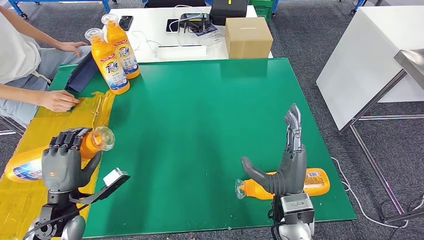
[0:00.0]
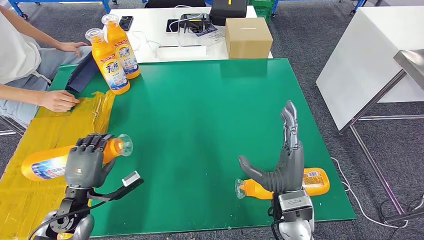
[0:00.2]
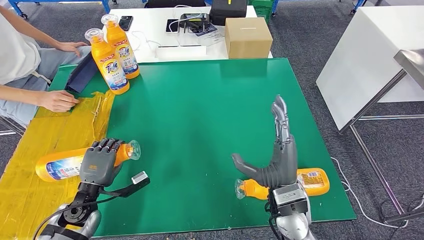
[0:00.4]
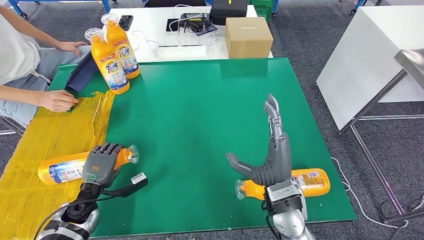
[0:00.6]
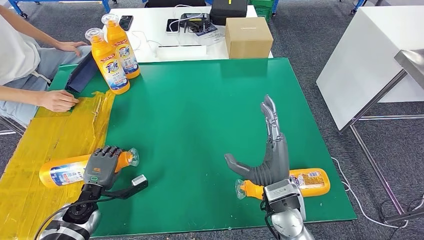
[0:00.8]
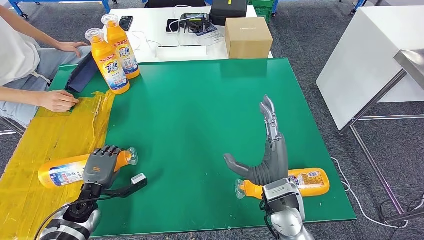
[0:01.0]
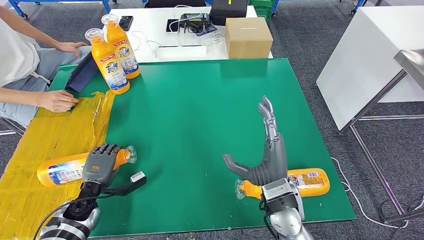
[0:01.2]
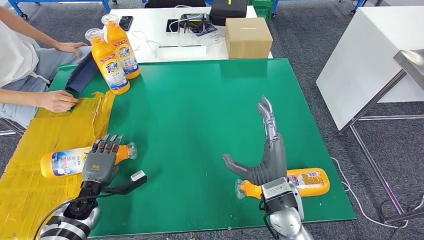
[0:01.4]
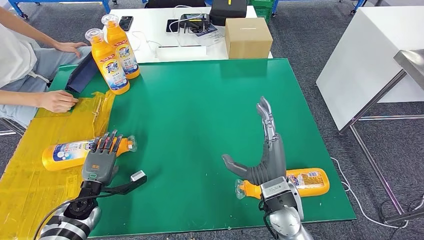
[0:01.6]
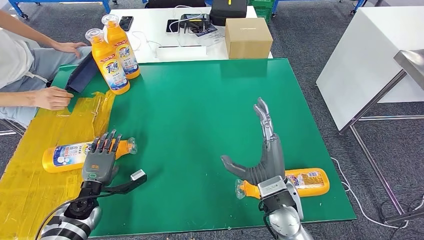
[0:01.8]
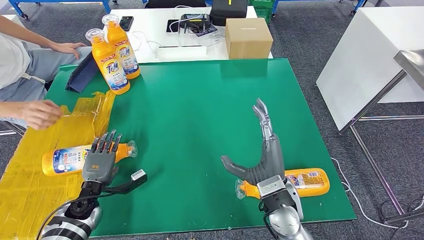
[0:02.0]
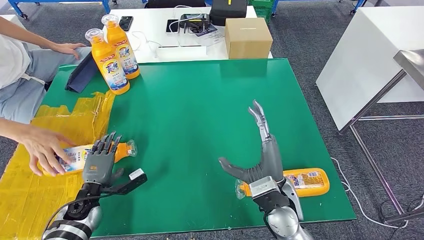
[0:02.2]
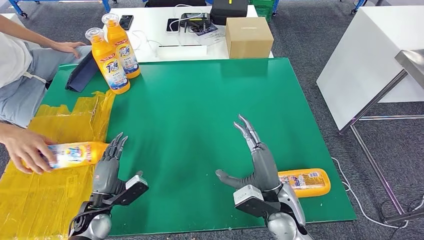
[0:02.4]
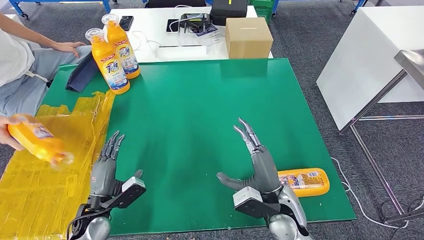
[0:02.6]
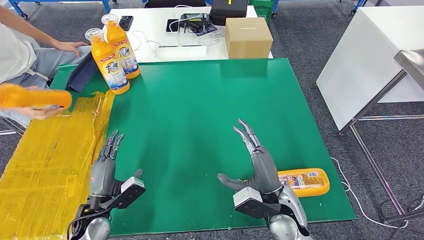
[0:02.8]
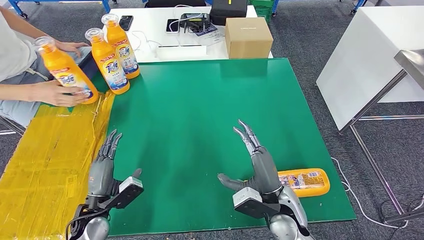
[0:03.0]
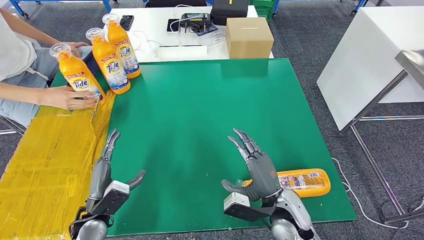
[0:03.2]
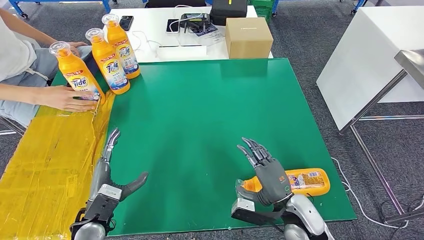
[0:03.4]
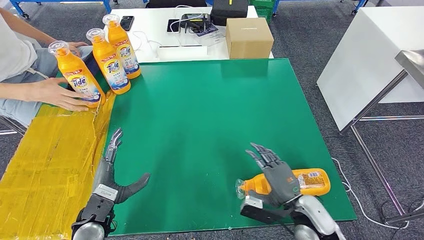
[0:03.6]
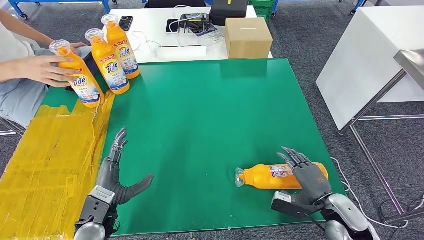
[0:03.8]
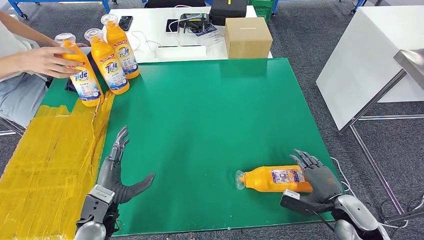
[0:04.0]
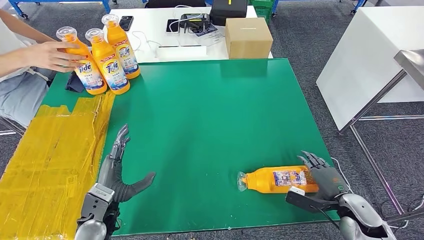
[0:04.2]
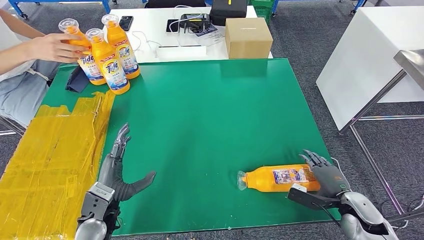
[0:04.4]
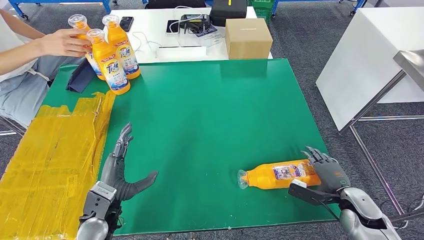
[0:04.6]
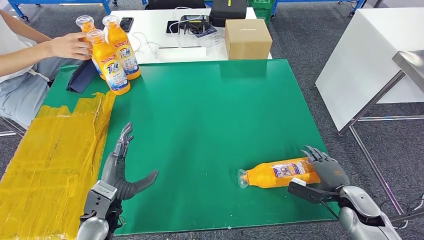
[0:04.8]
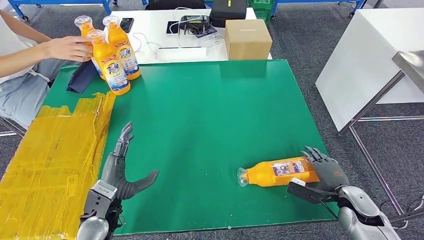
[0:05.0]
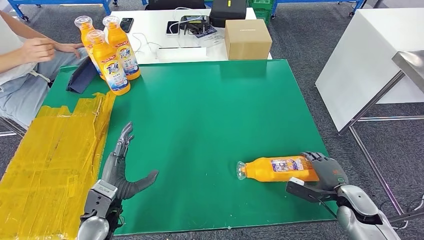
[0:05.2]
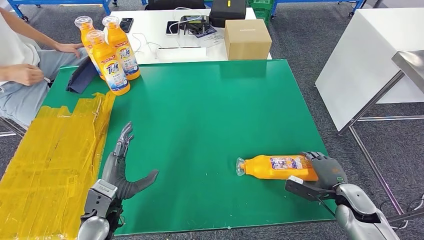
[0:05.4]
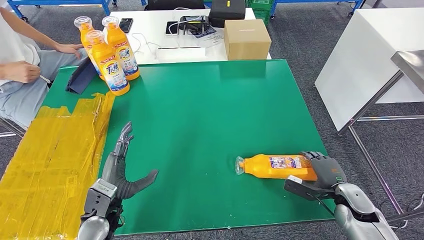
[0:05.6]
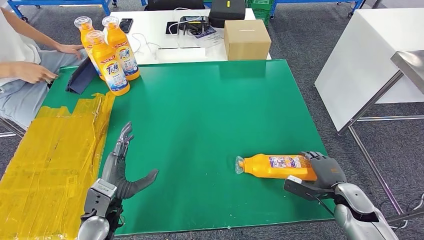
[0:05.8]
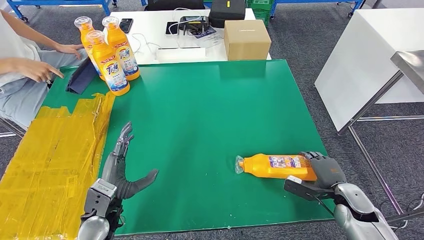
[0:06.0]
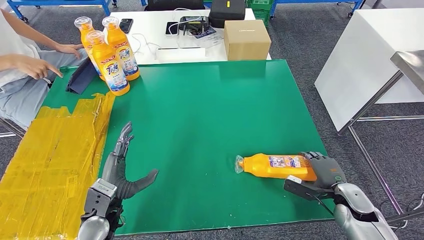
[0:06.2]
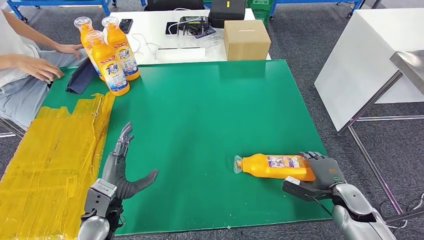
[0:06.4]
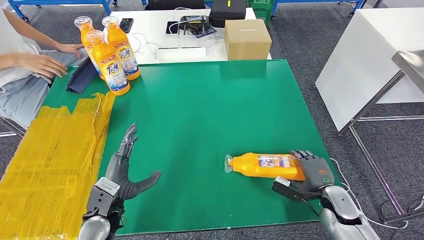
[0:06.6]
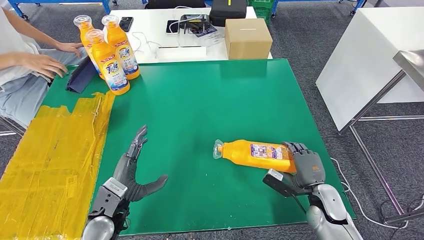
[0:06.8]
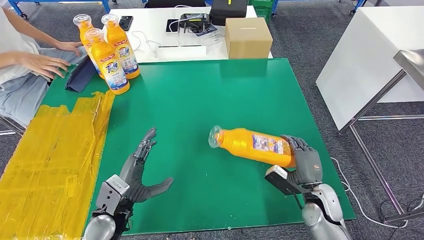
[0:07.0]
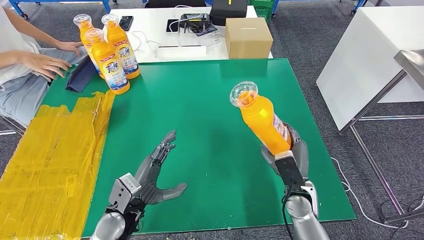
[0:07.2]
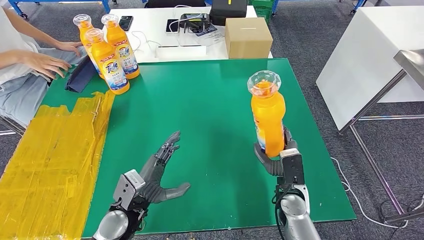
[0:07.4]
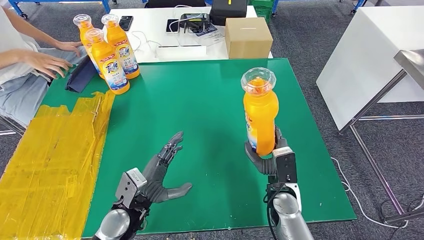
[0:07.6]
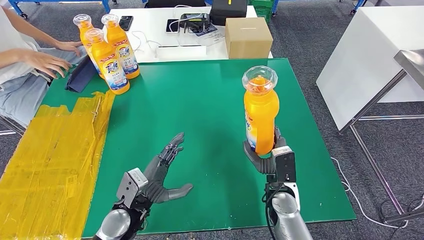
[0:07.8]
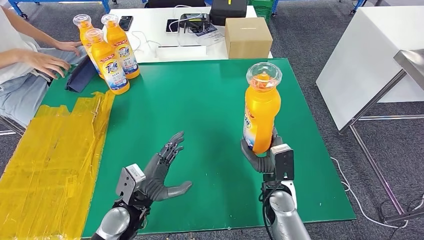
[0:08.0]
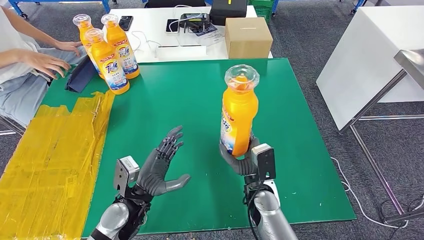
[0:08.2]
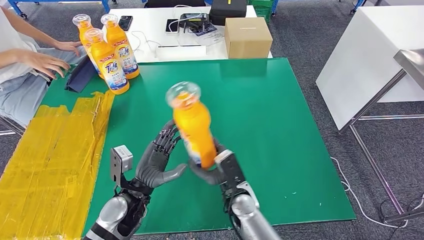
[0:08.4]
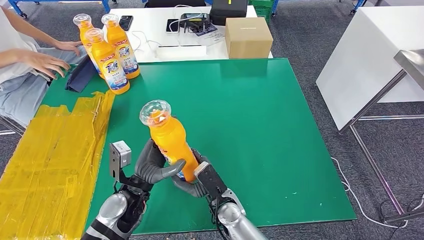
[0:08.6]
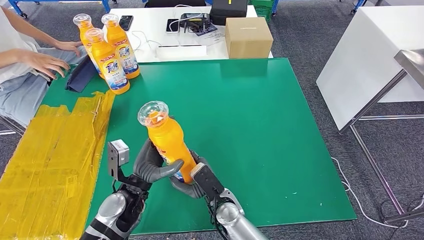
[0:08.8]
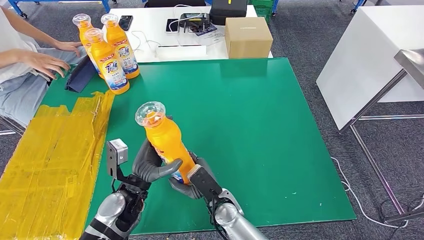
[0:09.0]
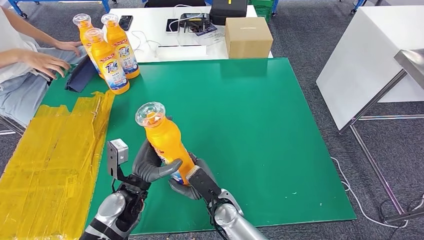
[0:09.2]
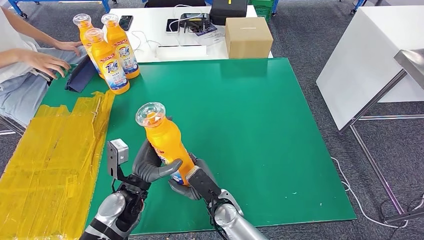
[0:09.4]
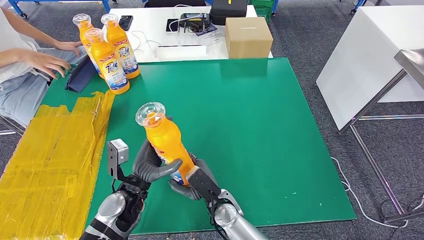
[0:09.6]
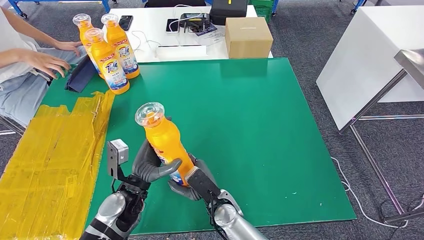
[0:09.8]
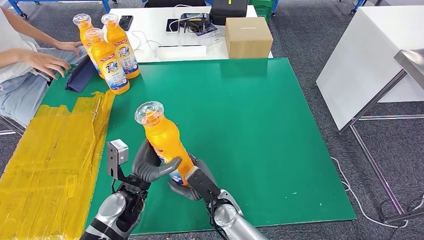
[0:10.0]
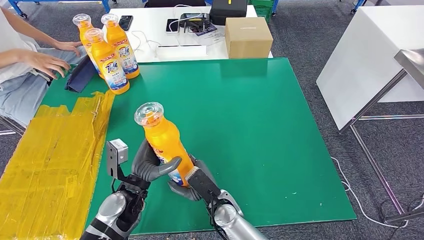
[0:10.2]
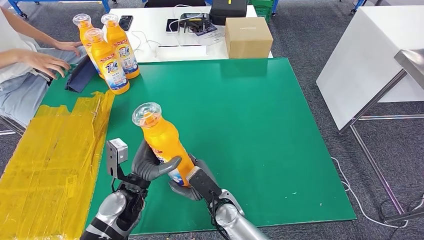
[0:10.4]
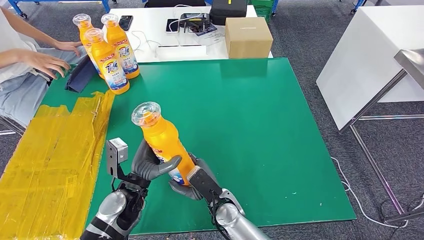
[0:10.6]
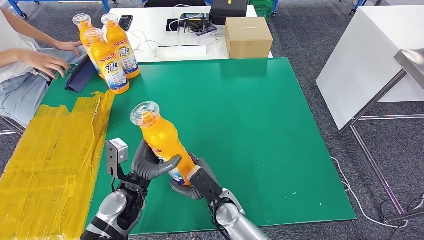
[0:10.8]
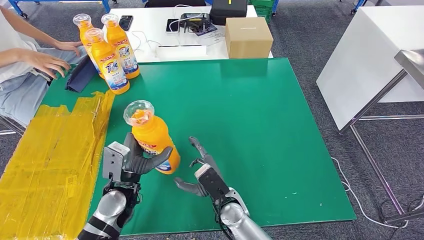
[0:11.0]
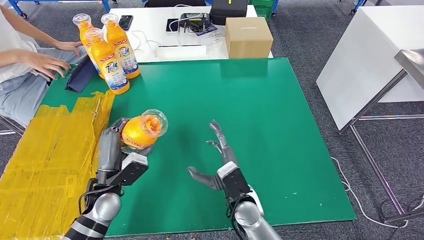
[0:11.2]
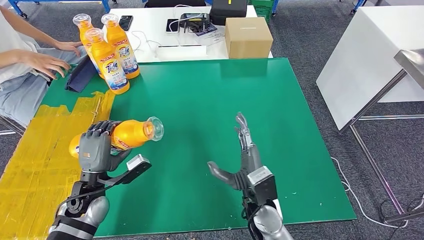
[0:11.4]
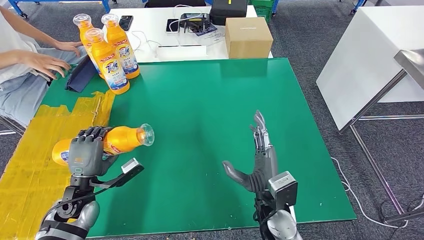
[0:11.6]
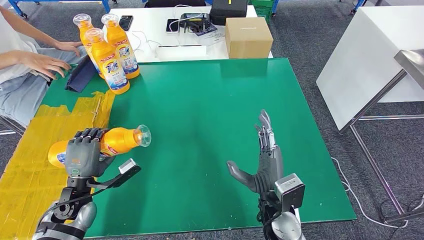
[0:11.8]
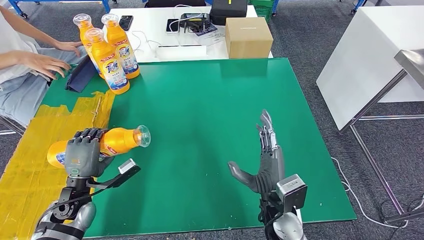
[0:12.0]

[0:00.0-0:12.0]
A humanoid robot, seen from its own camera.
Step, 0.0 to 2.6 s: Flip the bottle to face forward.
Step, 3.0 to 7.8 s: Pick up the bottle from the table.
0.0 to 1.6 s: The left hand shifts about 10 cm downward and forward.
1.6 to 3.0 s: The left hand changes place by some 10 cm.
3.0 to 4.4 s: The right hand moves to the right, about 20 cm, while the left hand moves roughly 5 cm.
4.4 to 6.0 s: The hands make only small movements.
7.6 to 9.0 s: The right hand heads to the left, covering some 15 cm.
9.0 to 10.4 s: Both hands stay about where they are.
10.4 to 12.0 s: The left hand is displaced to the left by about 15 cm; the right hand is displaced to the right and upward by about 15 cm.

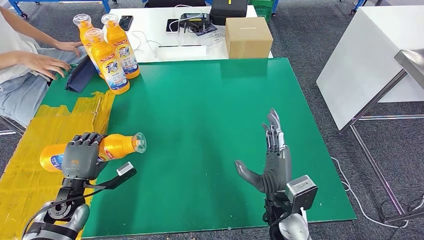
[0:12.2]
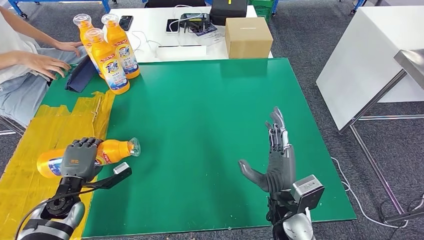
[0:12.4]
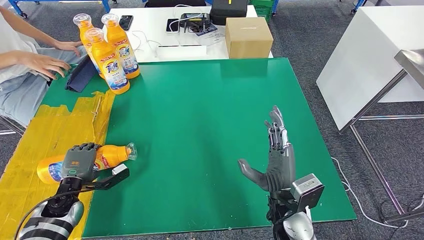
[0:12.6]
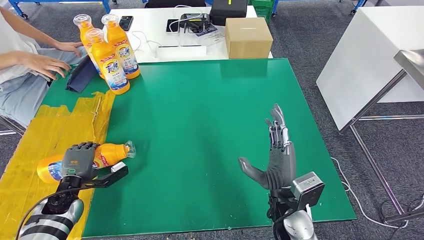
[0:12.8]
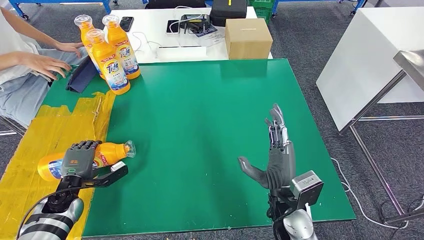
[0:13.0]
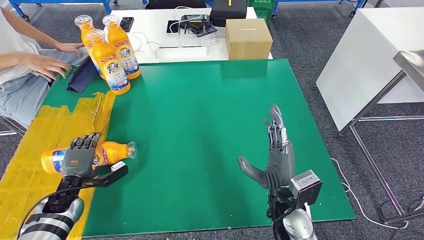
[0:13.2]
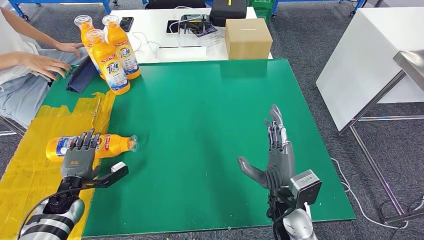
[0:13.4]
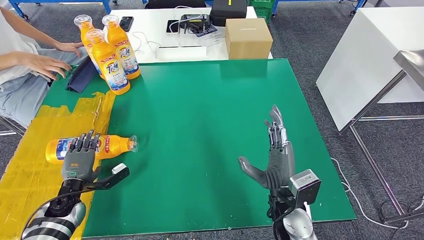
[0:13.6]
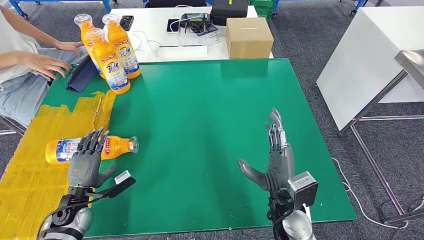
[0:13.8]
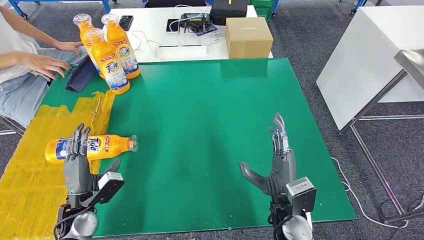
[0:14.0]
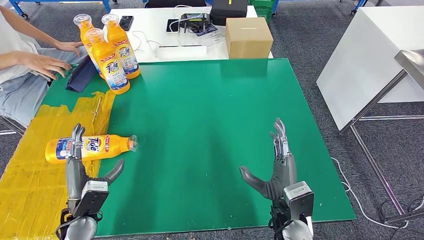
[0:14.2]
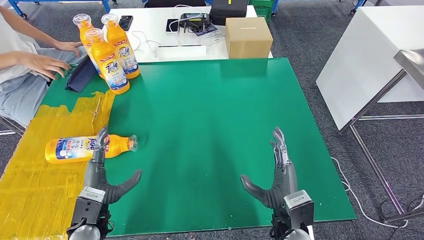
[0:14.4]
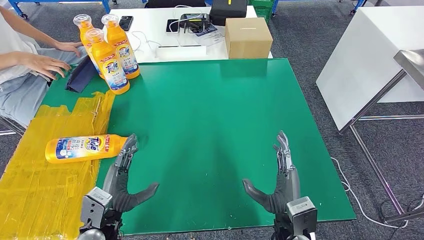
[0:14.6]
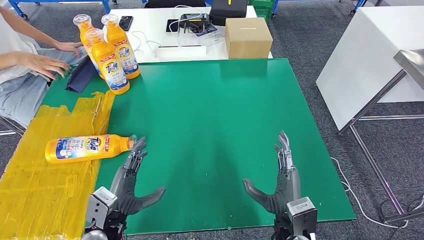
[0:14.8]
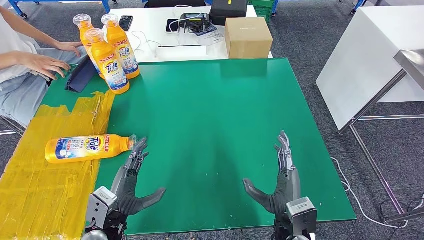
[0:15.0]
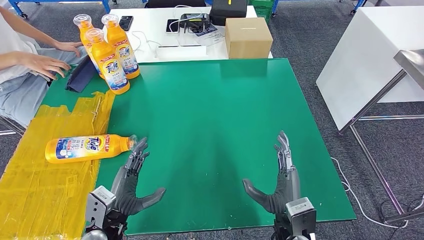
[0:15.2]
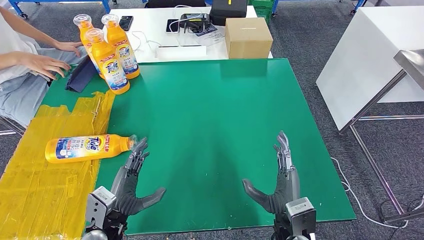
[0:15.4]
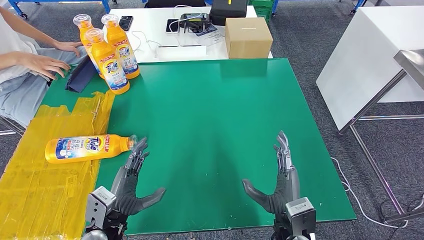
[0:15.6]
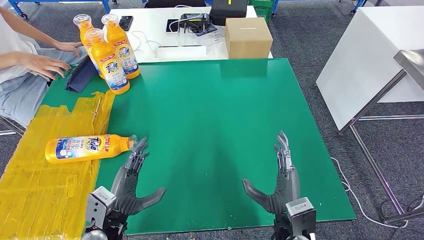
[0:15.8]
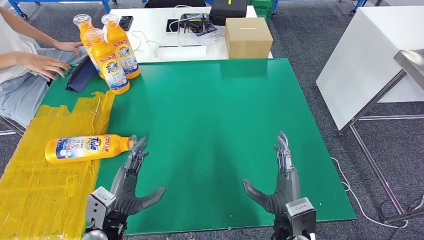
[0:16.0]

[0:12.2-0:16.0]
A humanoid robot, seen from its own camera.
Step, 12.2 to 16.0 s: Flip the bottle to face forward.
12.2 to 13.4 s: The left hand shifts by approximately 5 cm.
13.4 to 14.8 s: The left hand heads to the right and backward, covering about 20 cm, while the right hand shifts by approximately 5 cm.
14.8 to 16.0 s: The two hands keep their place.

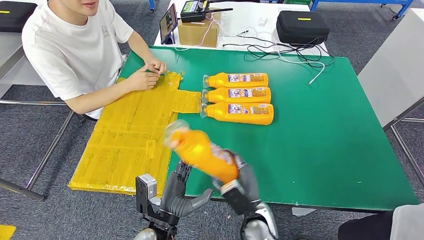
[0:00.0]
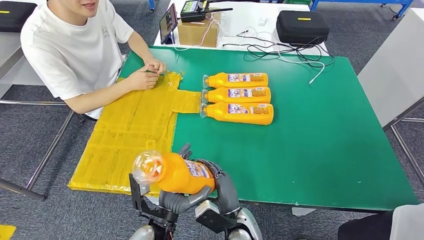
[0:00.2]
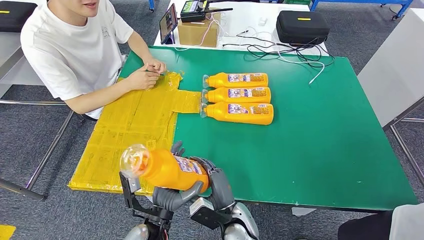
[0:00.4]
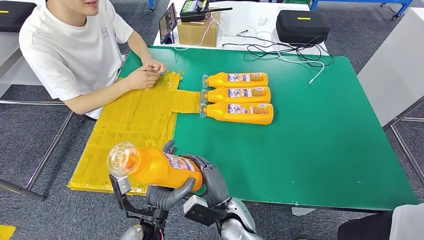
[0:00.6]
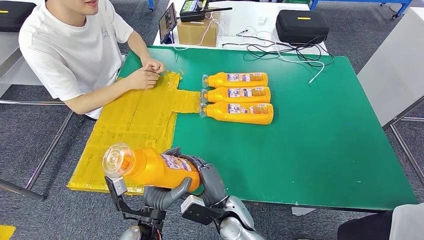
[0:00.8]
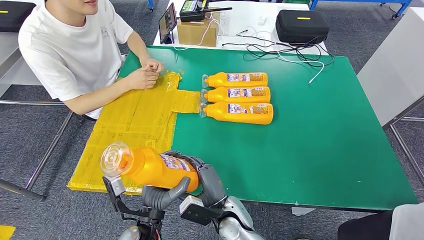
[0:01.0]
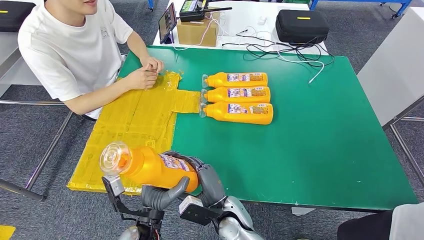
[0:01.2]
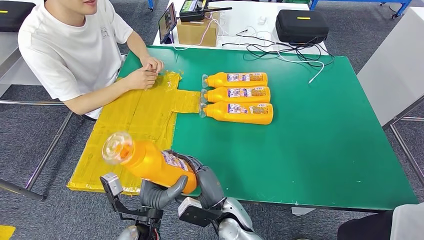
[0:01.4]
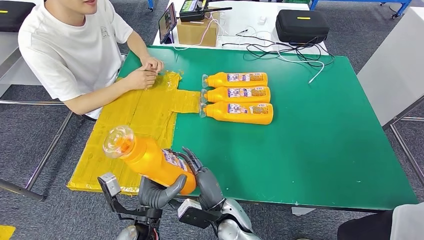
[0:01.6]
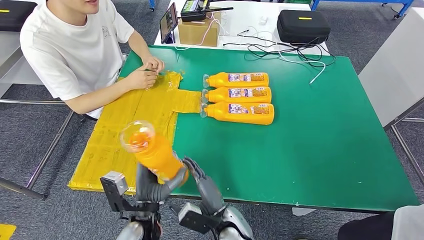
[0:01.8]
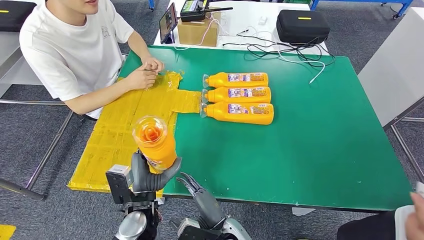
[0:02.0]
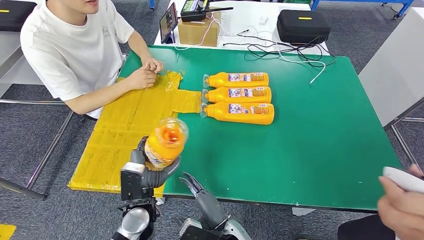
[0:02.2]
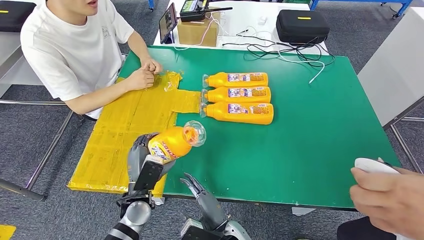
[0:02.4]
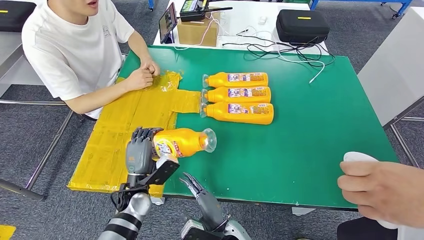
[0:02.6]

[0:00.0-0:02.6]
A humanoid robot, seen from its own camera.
0.0 to 1.2 s: The right hand is displaced to the left by about 10 cm.
1.2 to 2.6 s: The right hand changes place by approximately 5 cm, while the left hand travels forward and to the left by about 10 cm.
